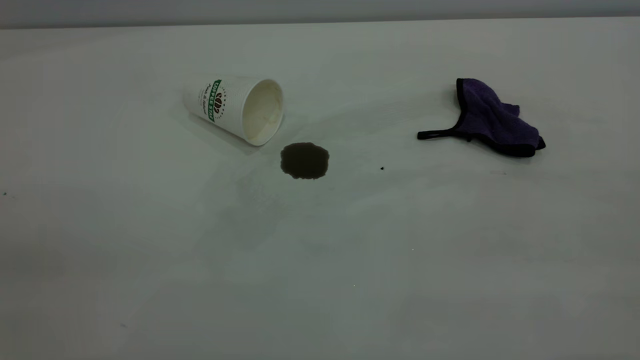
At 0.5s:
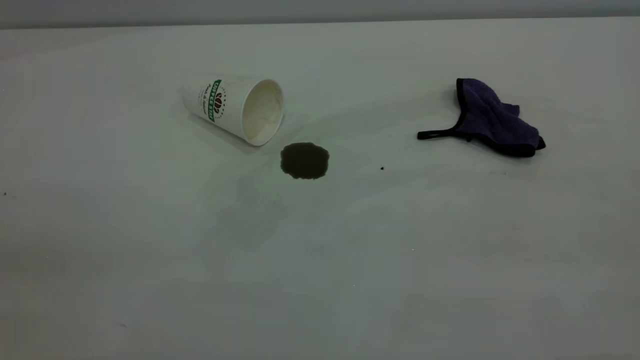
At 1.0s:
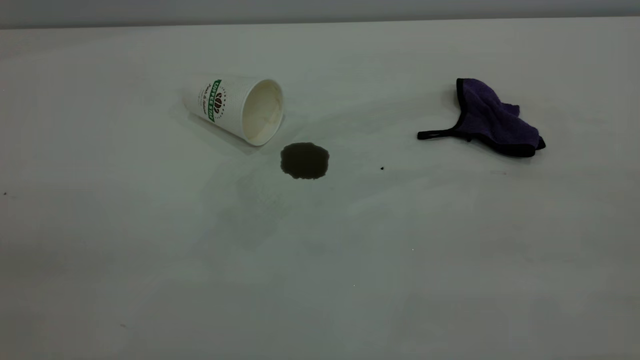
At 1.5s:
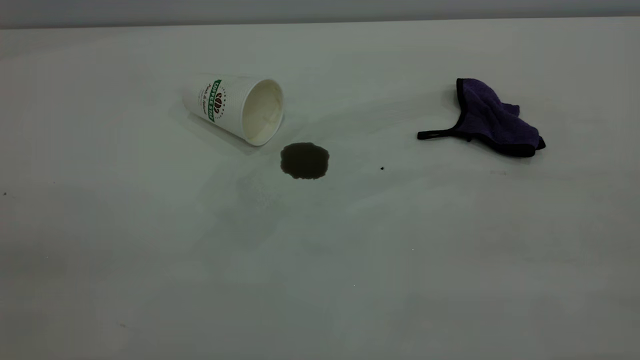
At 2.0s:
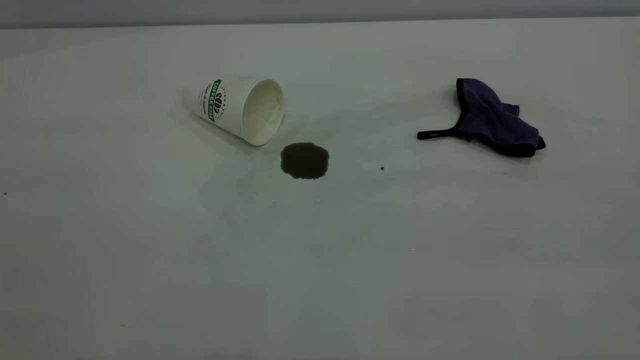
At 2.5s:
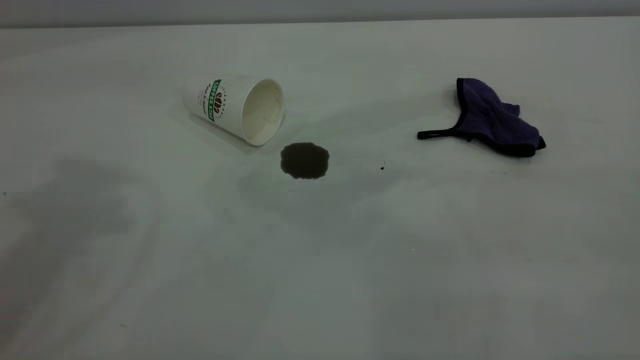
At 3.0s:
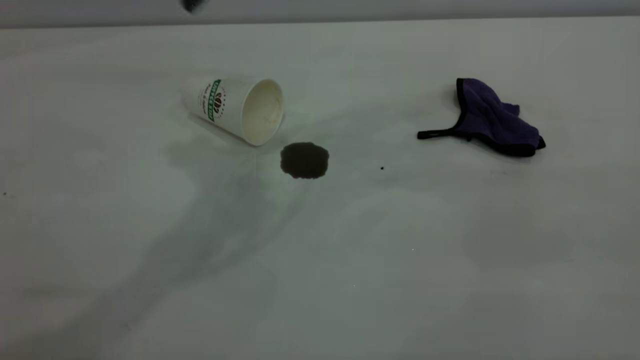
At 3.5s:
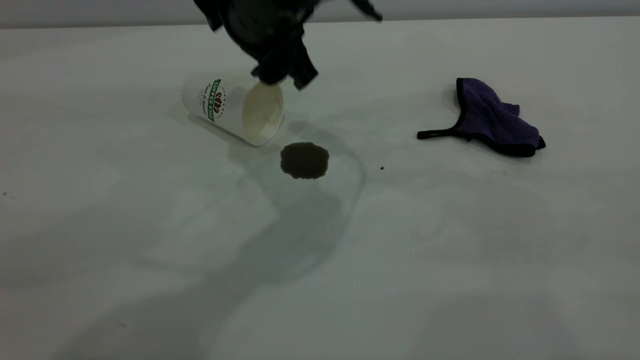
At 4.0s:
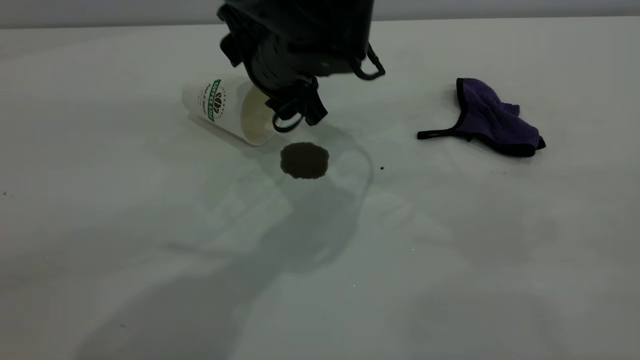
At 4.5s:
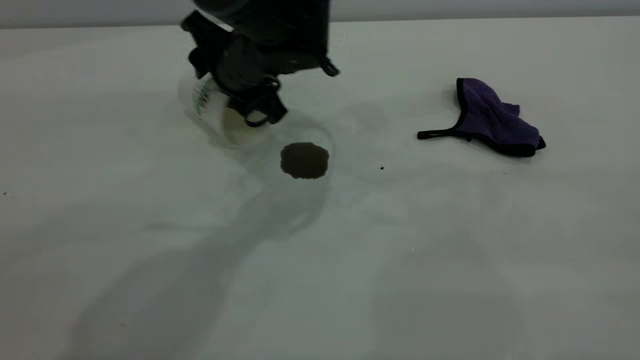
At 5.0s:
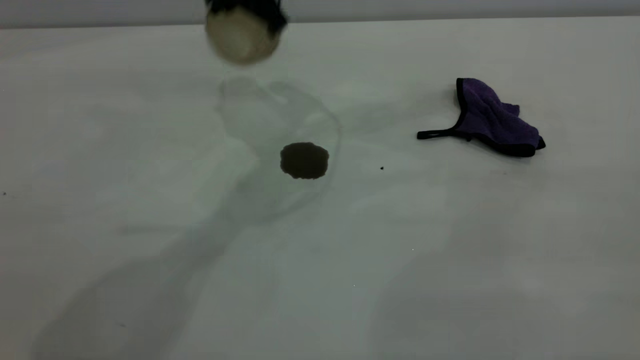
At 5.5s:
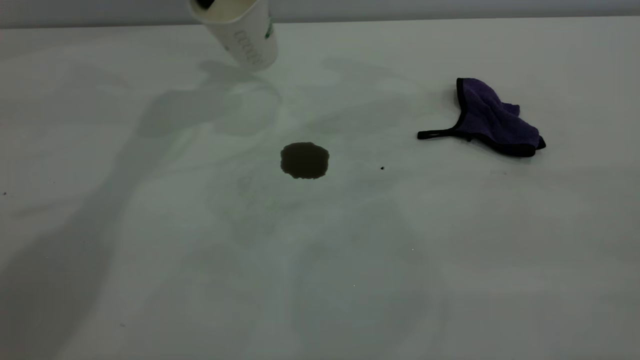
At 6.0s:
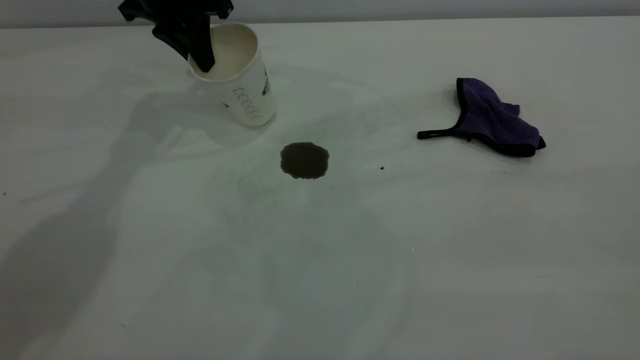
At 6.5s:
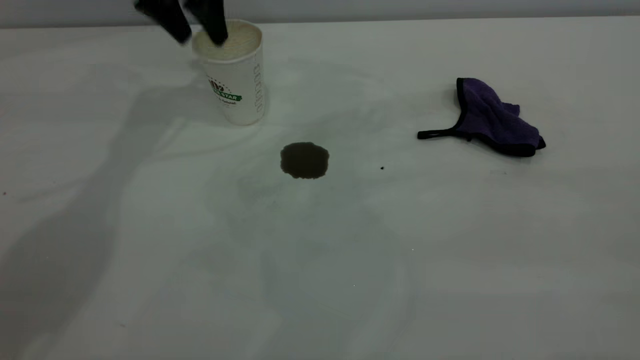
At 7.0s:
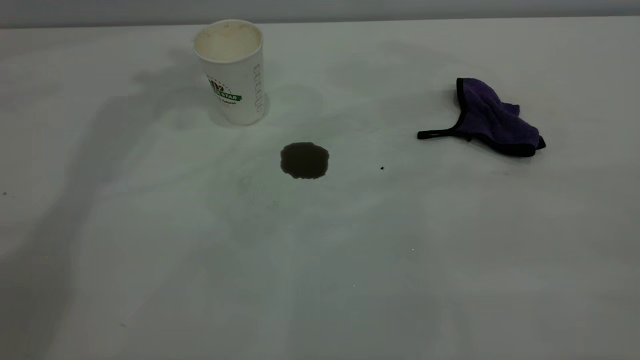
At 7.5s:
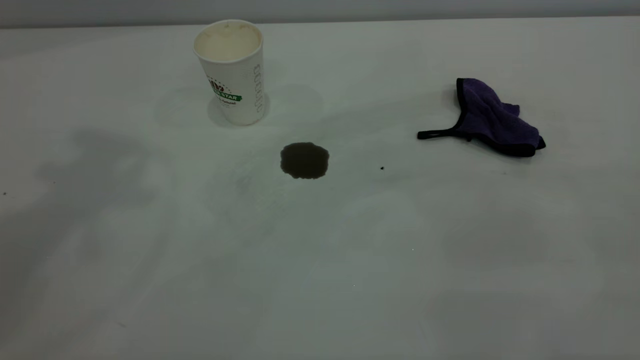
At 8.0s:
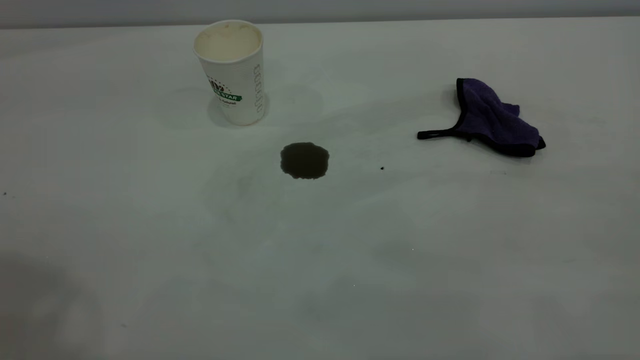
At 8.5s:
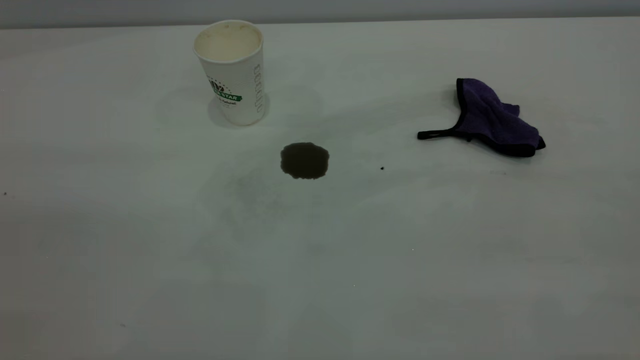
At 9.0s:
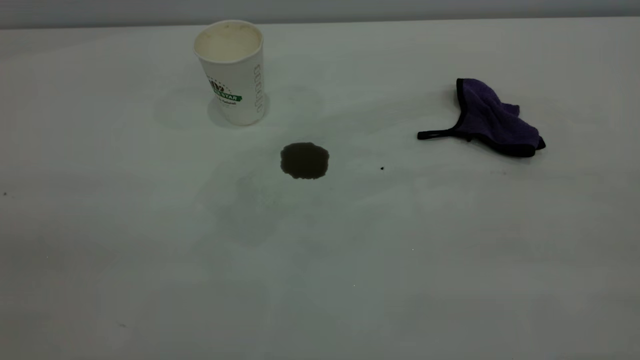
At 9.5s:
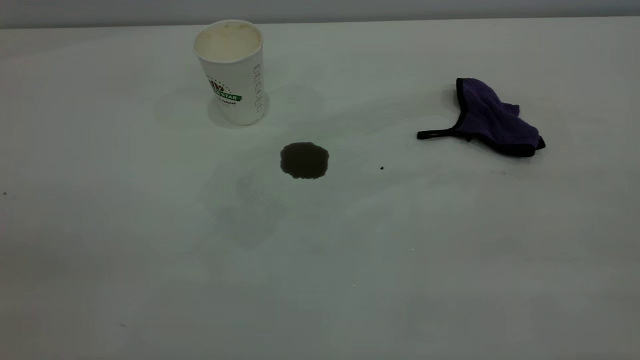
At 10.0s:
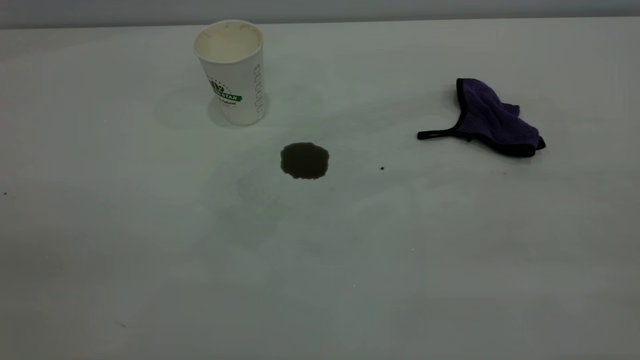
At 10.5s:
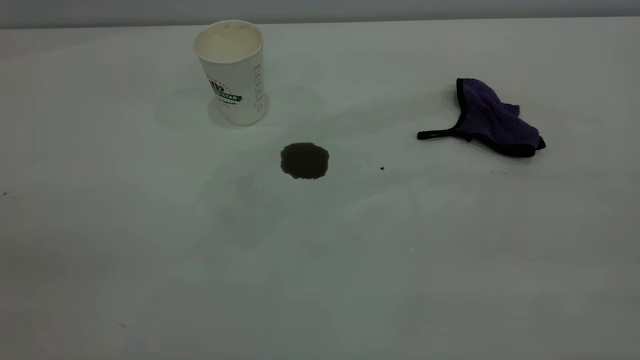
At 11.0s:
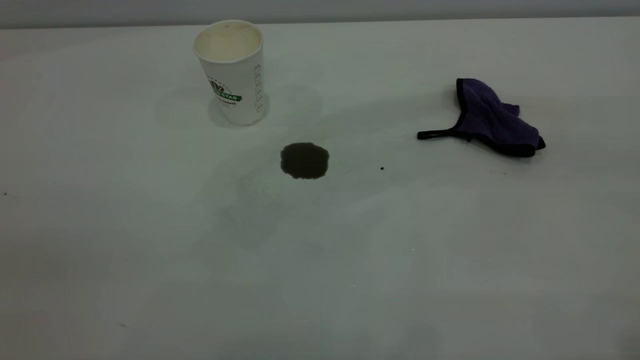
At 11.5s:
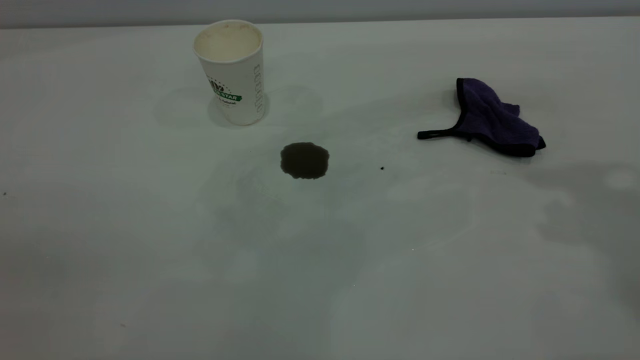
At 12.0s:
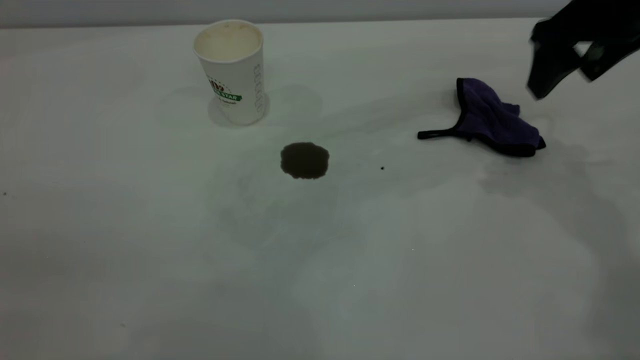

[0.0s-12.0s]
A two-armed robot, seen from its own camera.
Task of the whole recording: the left gripper pick up the fallen cup and place it upright, the right gripper grasp the purple rag and wipe the coffee stain on the table, the right gripper put the purple rag back in its original position.
Step, 0.0s to 6.5s: Stand the paper cup upright.
2.0s to 4.0s: The left gripper travels forward, downward and to the right by some 50 cm, and opens its fingers.
4.0s to 6.0s: The left gripper is displaced to the left and forward by some 20 cm, and closes.
6.0s to 8.0s: The left gripper travels backward and upward by about 50 cm, and opens.
10.0s to 12.0s: The right gripper is displaced forward and downward by about 40 cm, and opens.

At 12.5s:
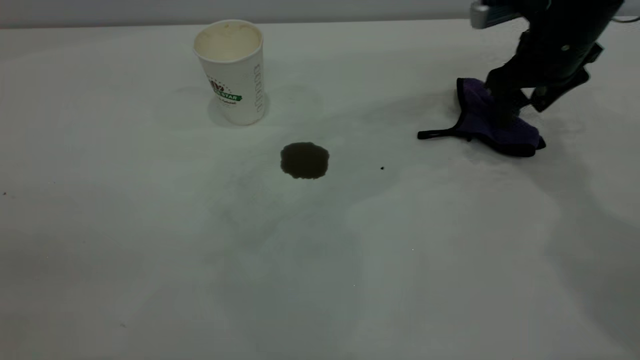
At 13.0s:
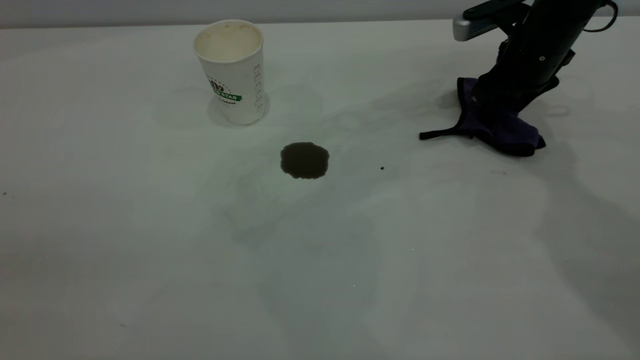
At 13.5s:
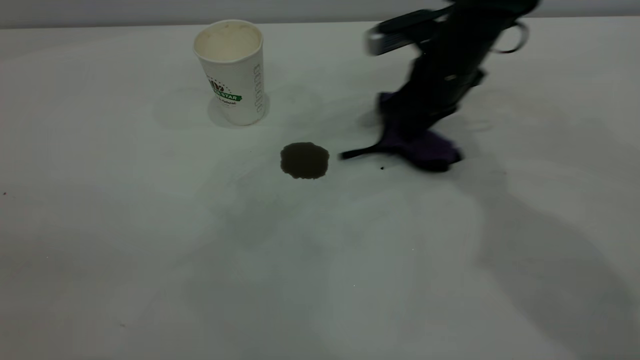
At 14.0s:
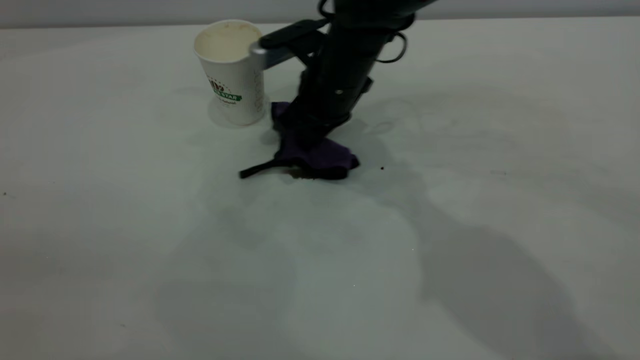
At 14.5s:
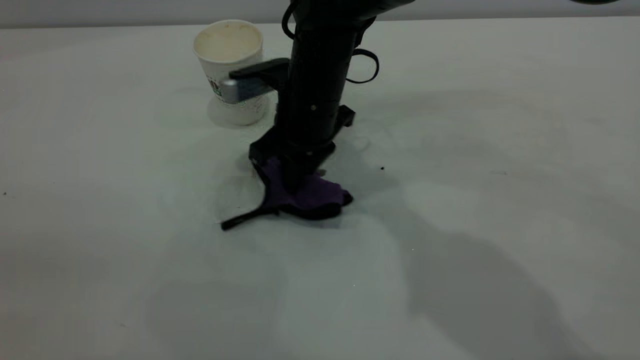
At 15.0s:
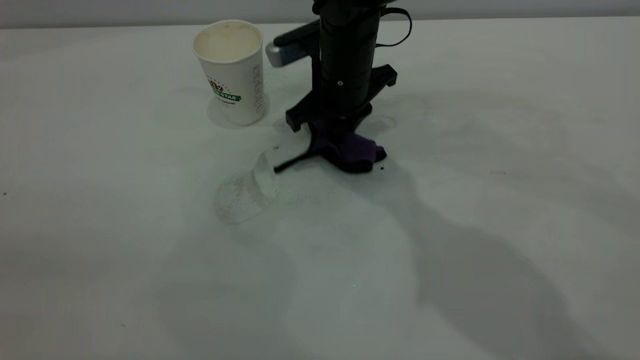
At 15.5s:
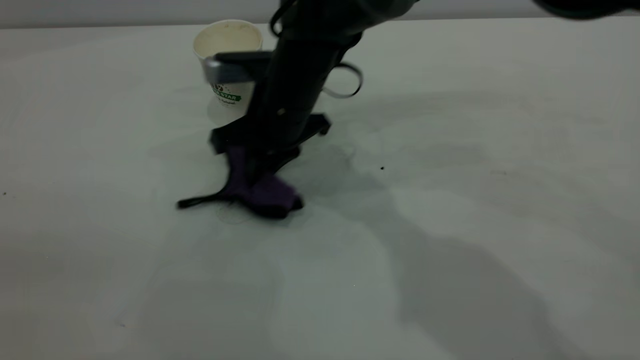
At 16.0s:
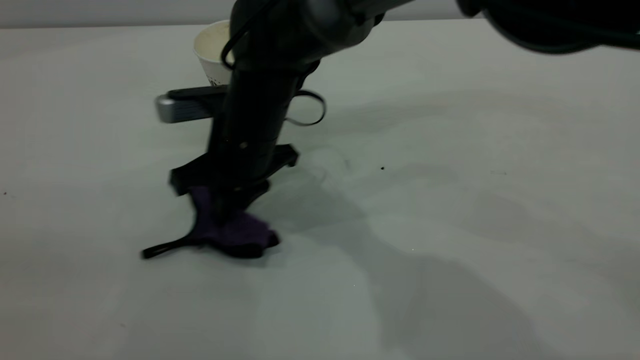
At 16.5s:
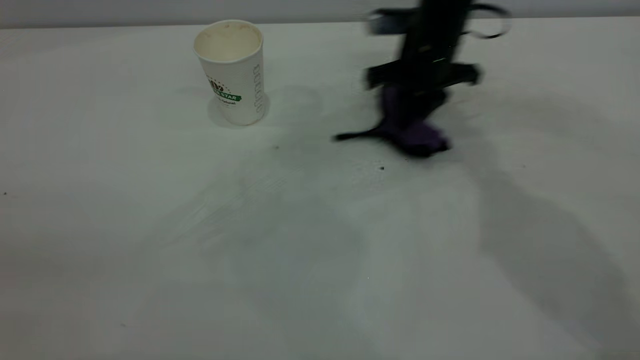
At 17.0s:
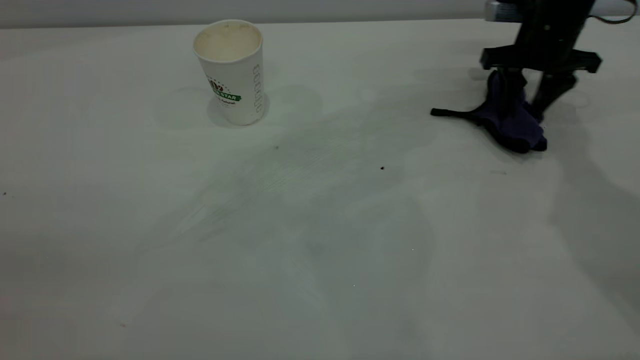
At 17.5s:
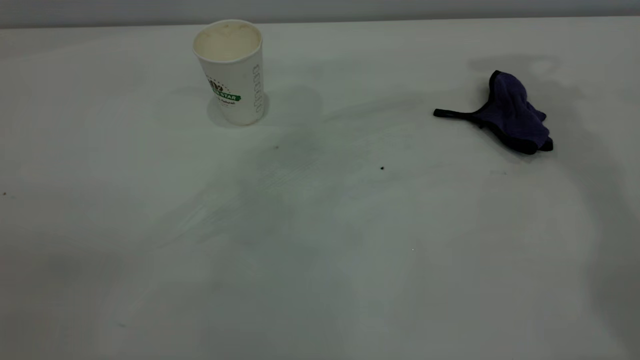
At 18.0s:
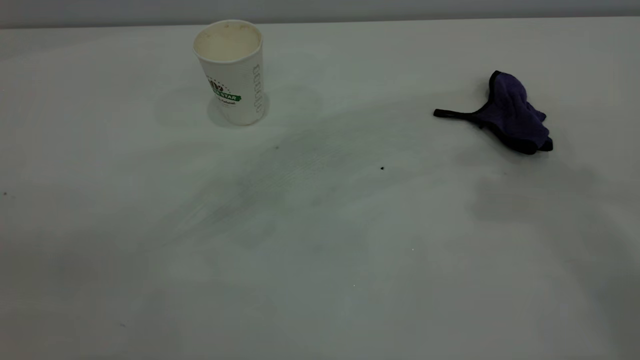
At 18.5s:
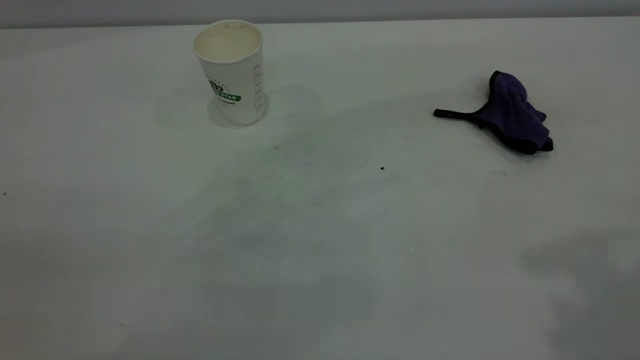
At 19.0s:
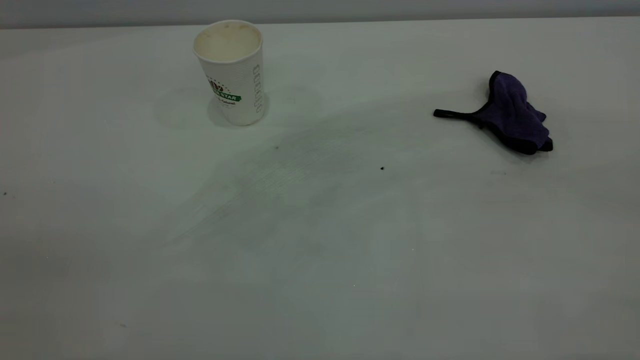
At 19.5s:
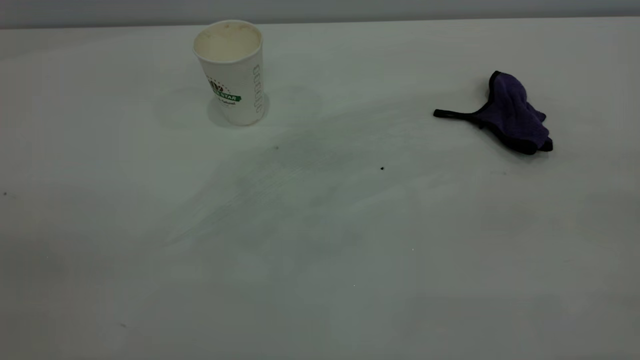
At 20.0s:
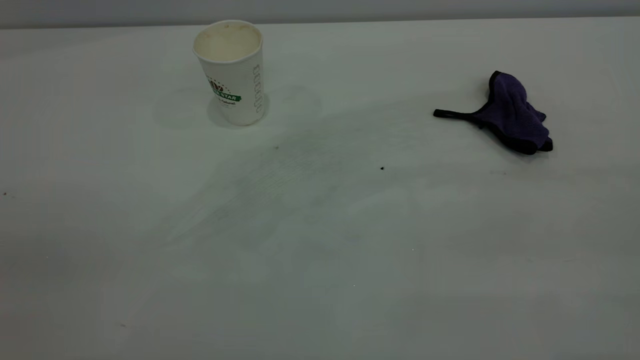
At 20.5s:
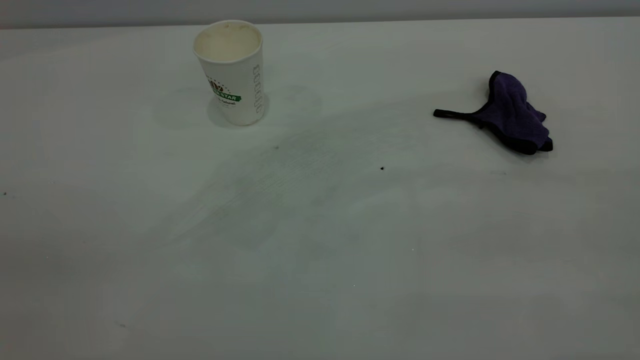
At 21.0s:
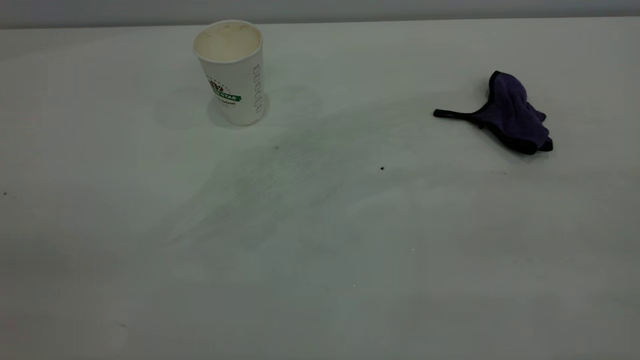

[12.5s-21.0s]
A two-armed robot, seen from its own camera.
Task of the whole recording: the left gripper pick up the fallen cup and place it upright, the right gripper grasp the purple rag and wipe the coffee stain on the table, the right gripper put the purple rag back in its original position.
Step, 12.5s to 17.0s: Wipe the stains off the table with a rag.
12.5s to 14.5s: The right gripper shifts about 25 cm to the left, and closes.
14.5s to 16.5s: The right gripper moves to the right and forward, approximately 20 cm.
16.5s to 19.0s: The right gripper heads backward and upward, covering about 50 cm, and opens its fingers.
